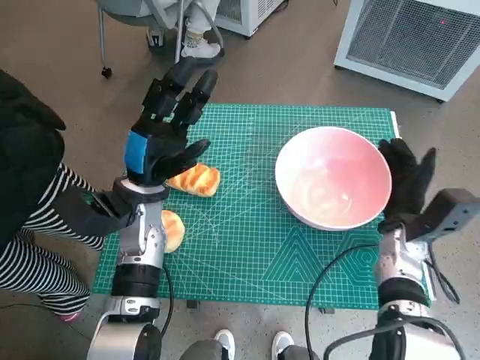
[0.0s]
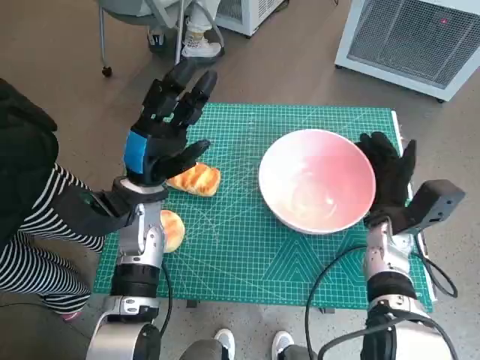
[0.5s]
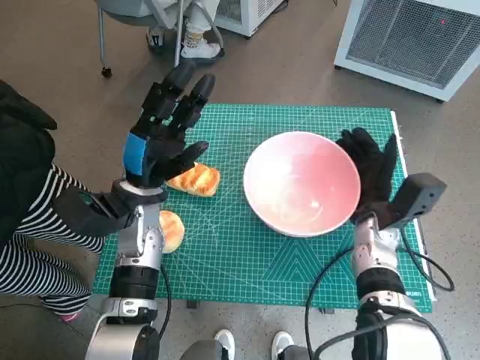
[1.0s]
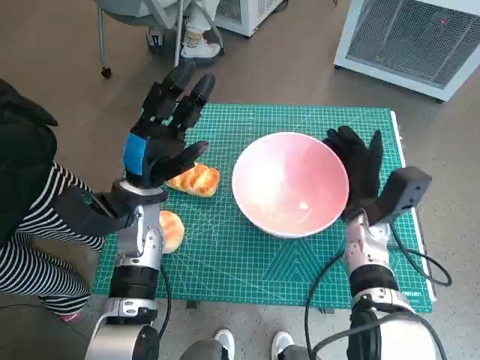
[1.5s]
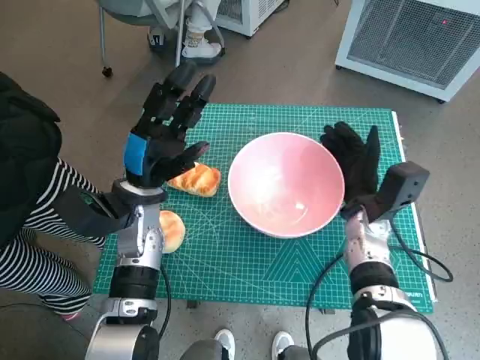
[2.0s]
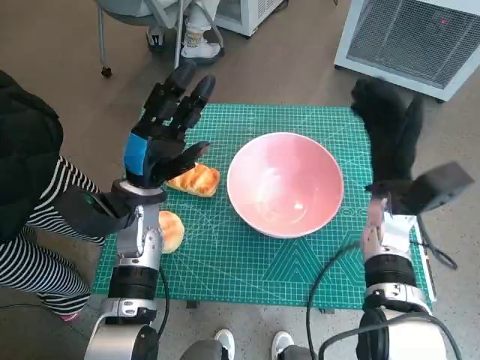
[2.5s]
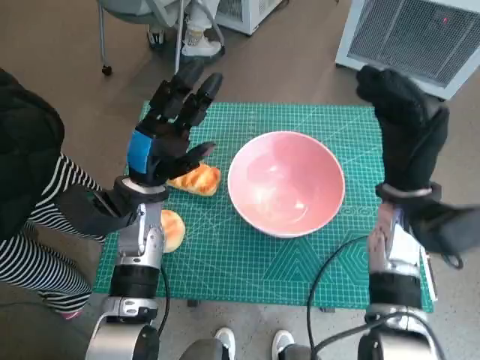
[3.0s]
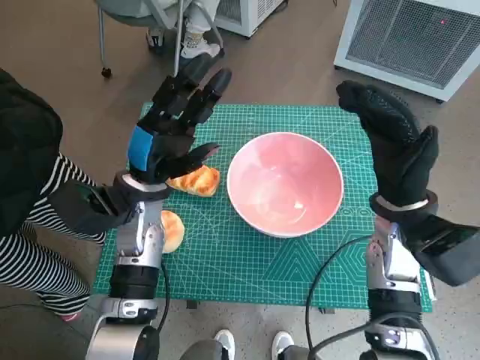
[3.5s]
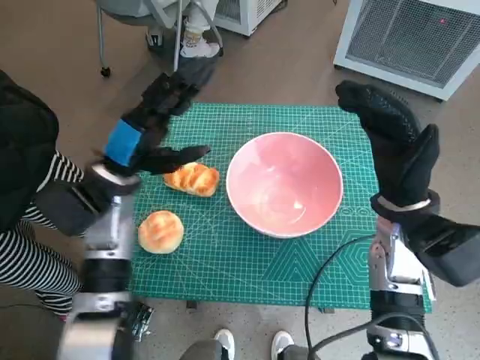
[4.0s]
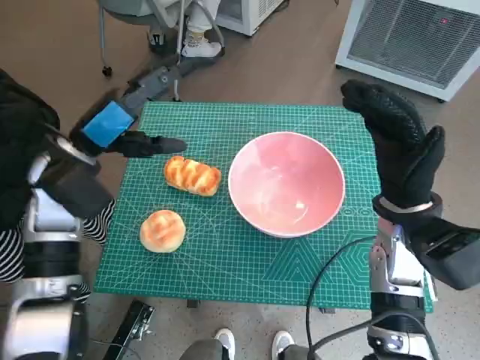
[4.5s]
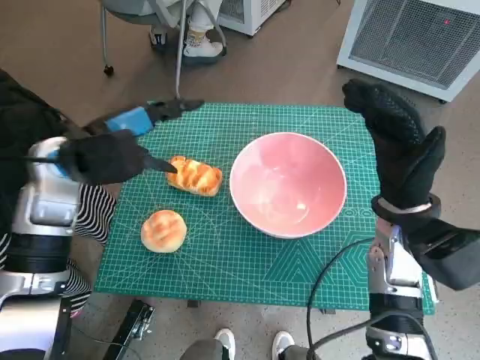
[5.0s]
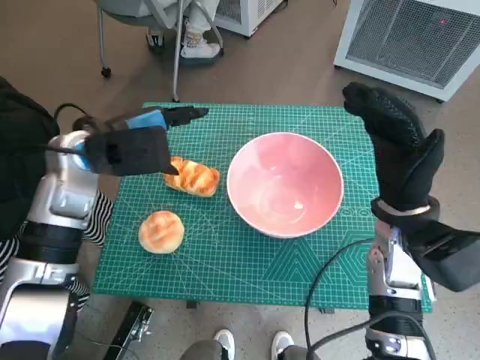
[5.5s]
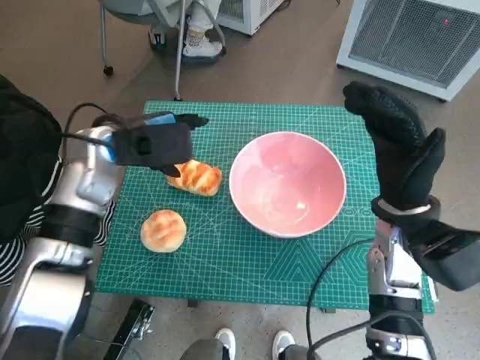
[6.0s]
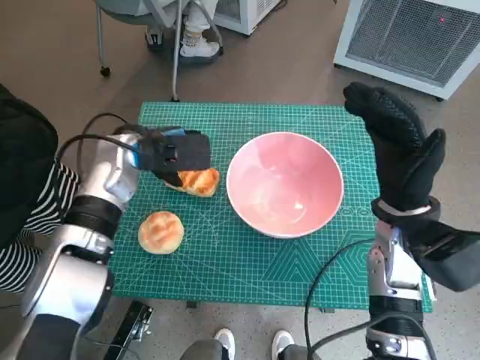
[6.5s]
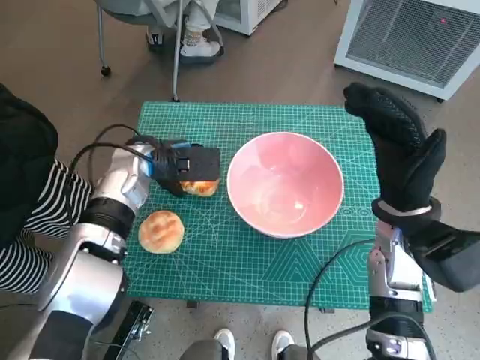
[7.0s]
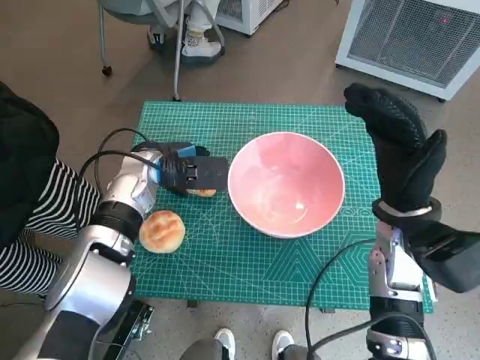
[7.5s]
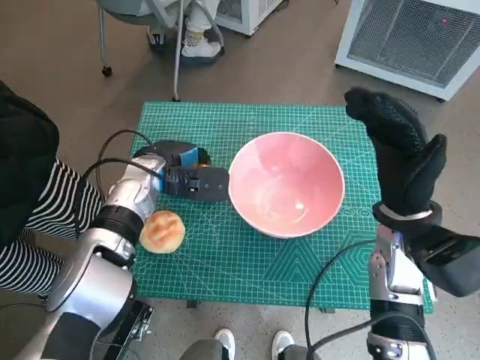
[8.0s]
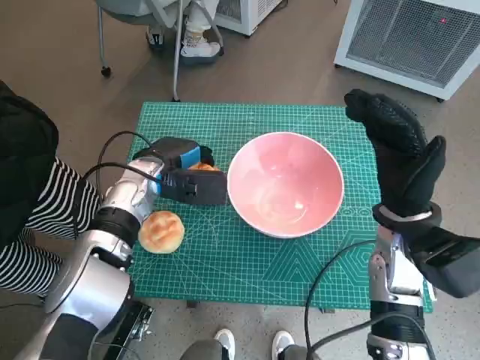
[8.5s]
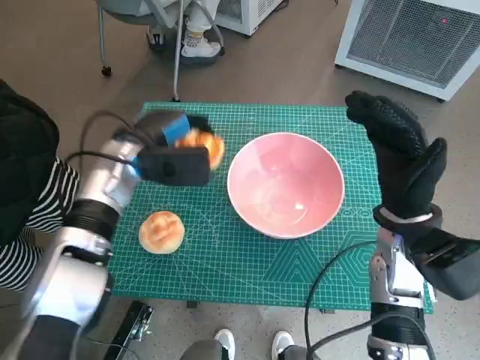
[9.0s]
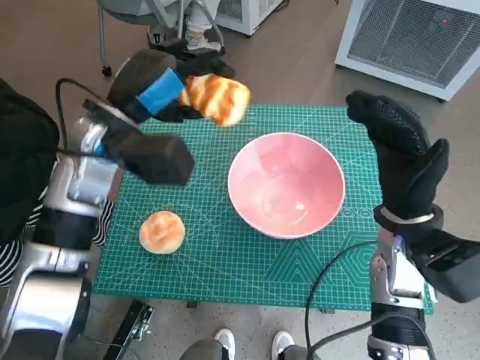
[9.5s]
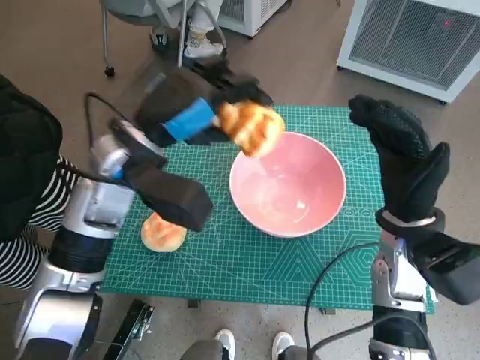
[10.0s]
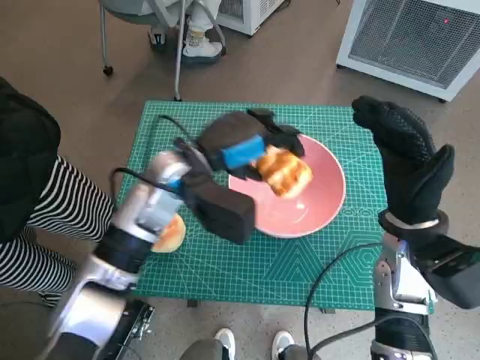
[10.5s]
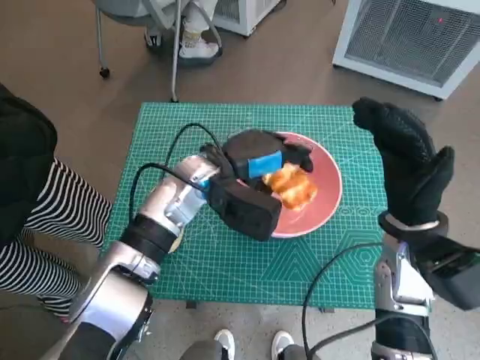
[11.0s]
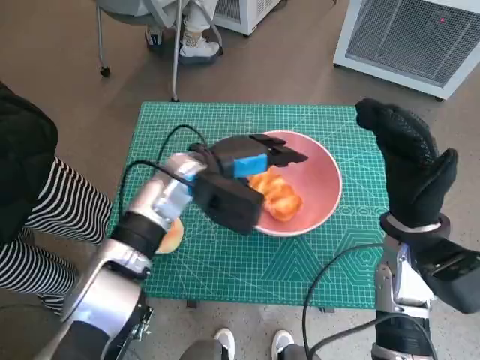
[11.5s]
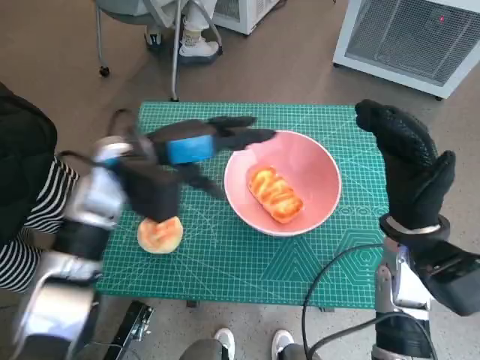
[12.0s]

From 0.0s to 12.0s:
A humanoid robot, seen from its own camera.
Task of the whole recording: Push the bowl into the center of the table and put the bread into the bowl.
Step, from 0.0s to 2.0s: Move the pink bowl to the center of table with right hand.
Step, from 2.5s to 8.0s: Grasp the long bread with left hand.
Step, from 8.5s to 11.5s: Place the long bread in pink bowl with left hand.
From 0.0s to 2.0s: The right hand travels to the left by about 5 cm.
From 2.0s to 4.0s: The right hand goes some 10 cm upward.
From 4.0s to 6.0s: The left hand changes place by some 5 cm.
From 6.0s to 8.0s: The left hand goes some 10 cm downward.
From 8.0s to 10.0s: The left hand moves upward, approximately 10 cm.
From 10.0s to 12.0s: The left hand moves some 5 cm to the right and comes back.

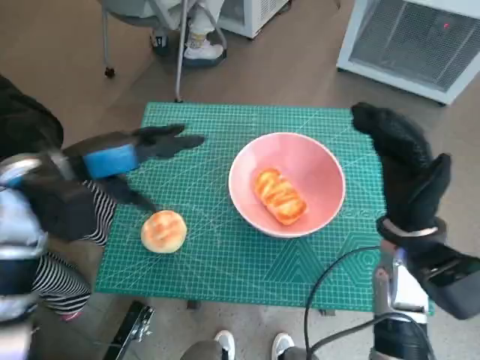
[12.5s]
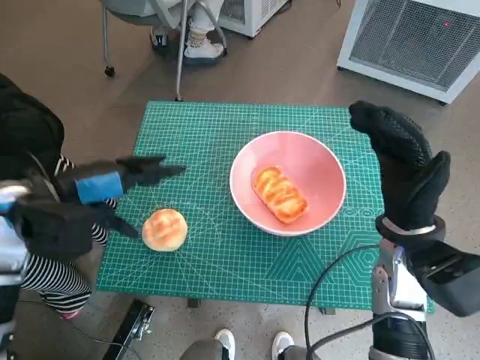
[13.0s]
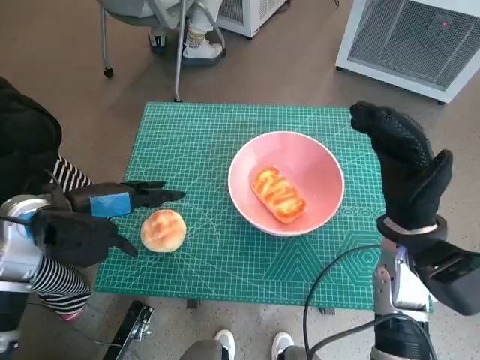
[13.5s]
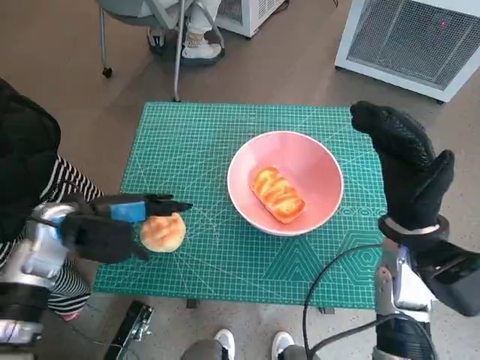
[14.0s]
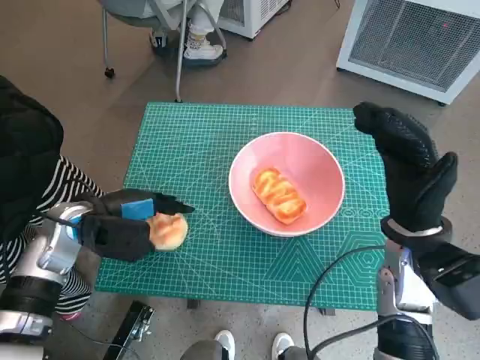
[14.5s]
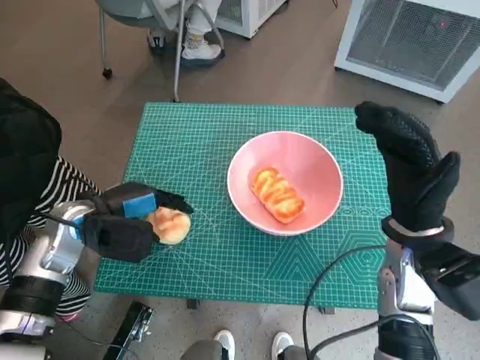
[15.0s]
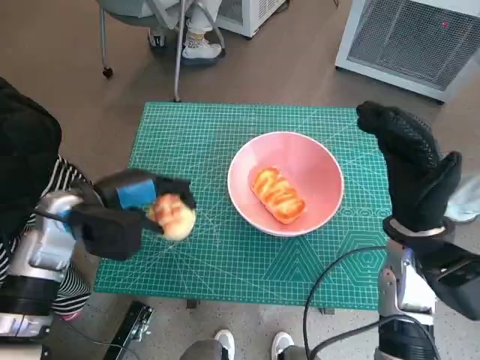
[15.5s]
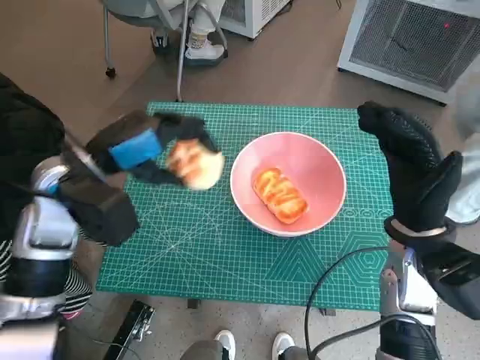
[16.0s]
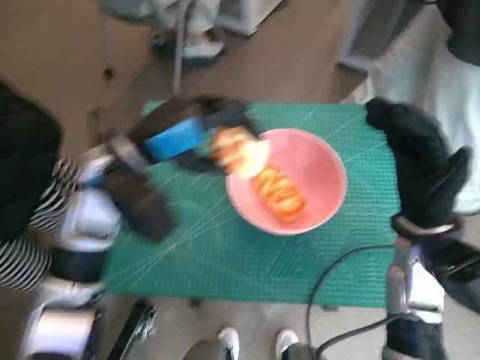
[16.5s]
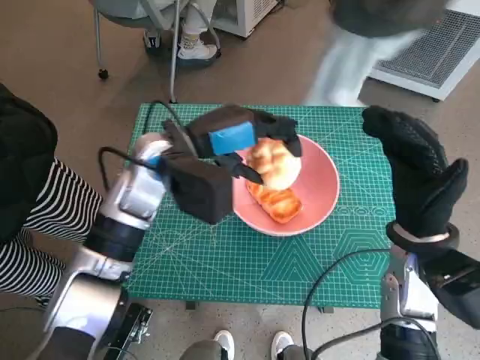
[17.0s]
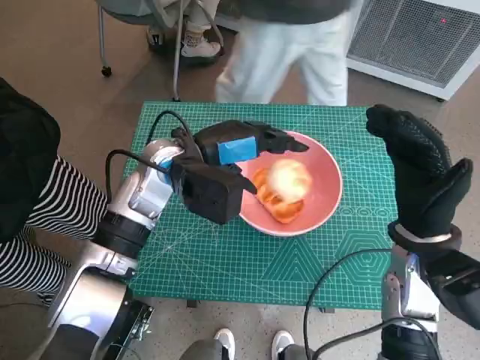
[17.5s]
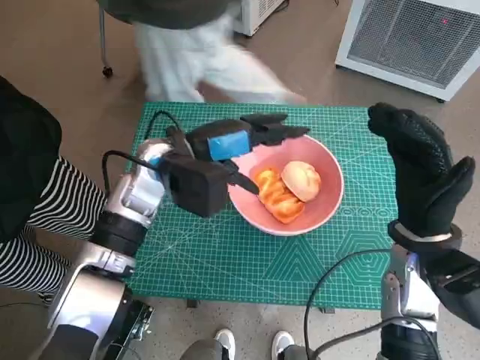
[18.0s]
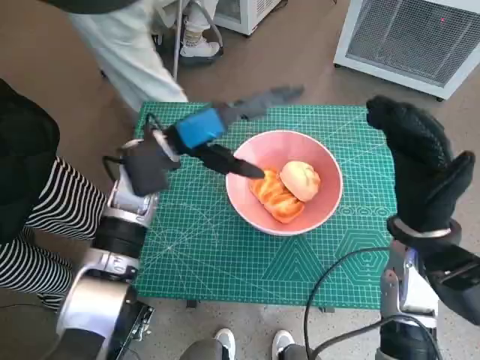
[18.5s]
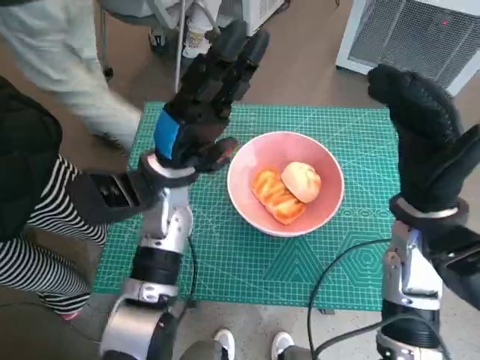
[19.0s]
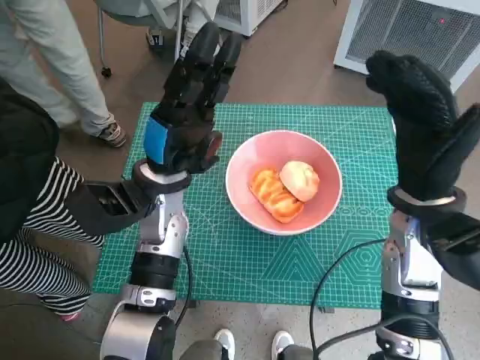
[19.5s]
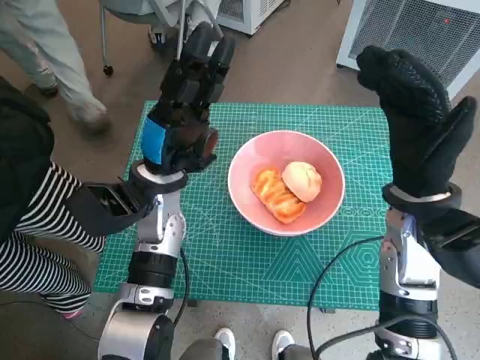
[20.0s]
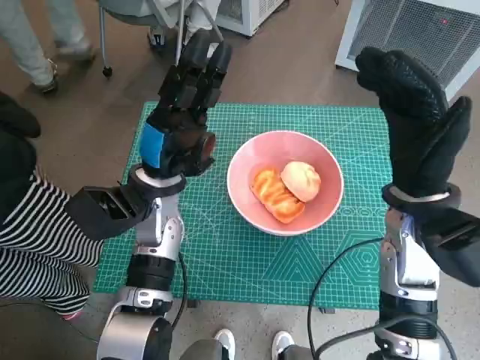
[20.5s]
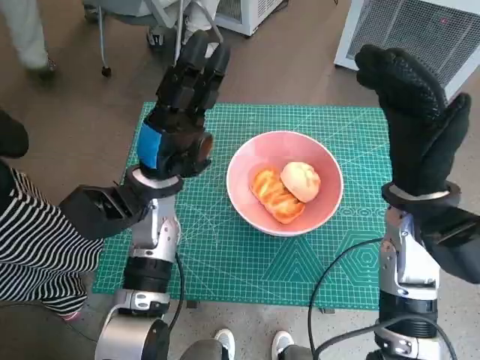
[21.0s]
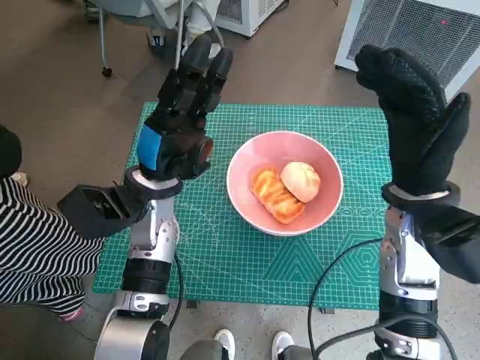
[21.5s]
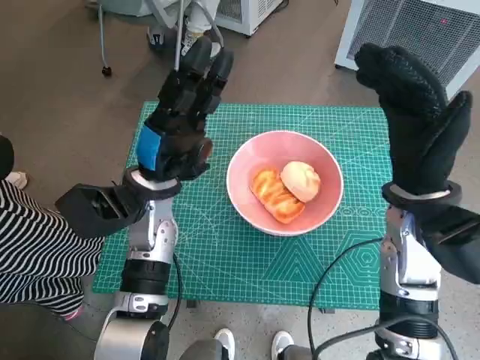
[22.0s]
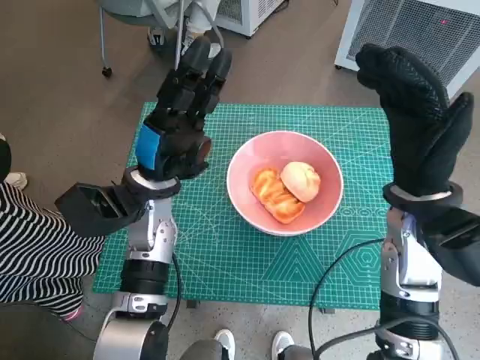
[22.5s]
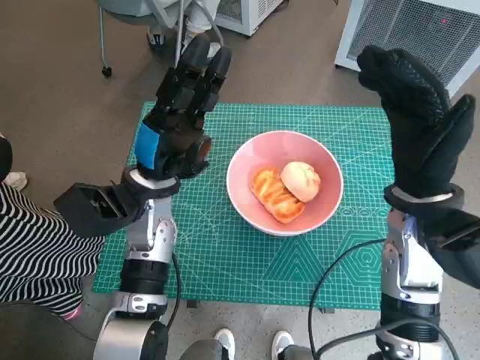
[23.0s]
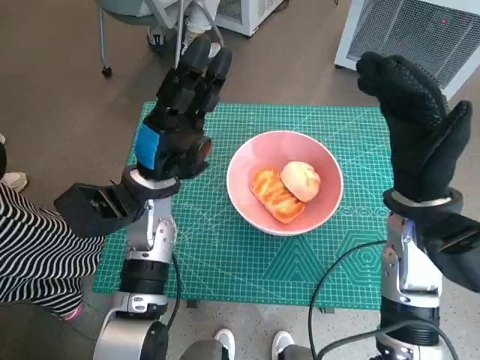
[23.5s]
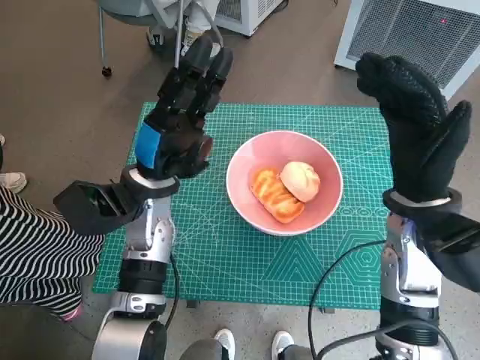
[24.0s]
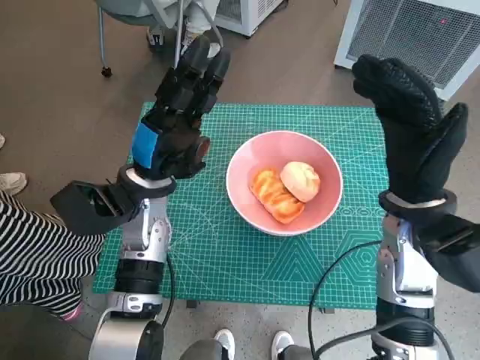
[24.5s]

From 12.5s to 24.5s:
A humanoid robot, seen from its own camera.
Task of the whole recording: Push the bowl into the center of the table and put the bread into the bowl.
Step, from 12.5s to 14.5s: Grasp the round bread with left hand.
Step, from 15.0s to 18.0s: Place the round bread in pink bowl with left hand.
From 12.5s to 14.5s: The left hand heads downward, covering roughly 10 cm.
From 14.5s to 16.5s: The left hand goes some 15 cm upward and to the right.
From 16.5s to 18.5s: The left hand ends up about 5 cm from where it was.
From 18.5s to 20.5s: The left hand shifts by roughly 5 cm.
From 20.5s to 22.5s: Both hands stay put.
From 22.5s to 24.5s: The two hands keep their place.

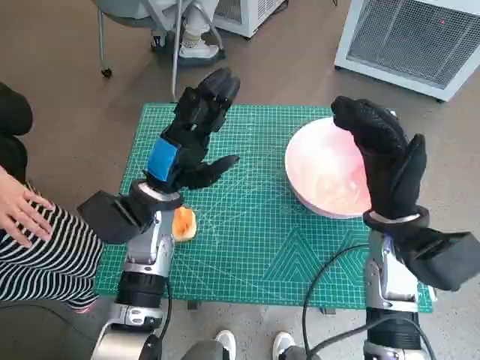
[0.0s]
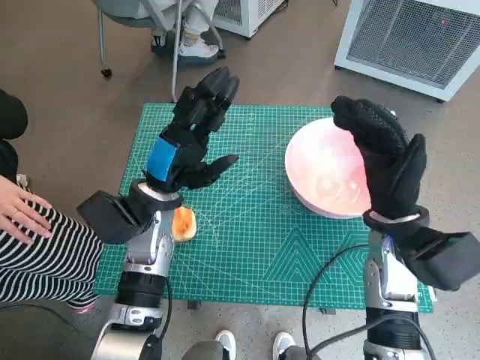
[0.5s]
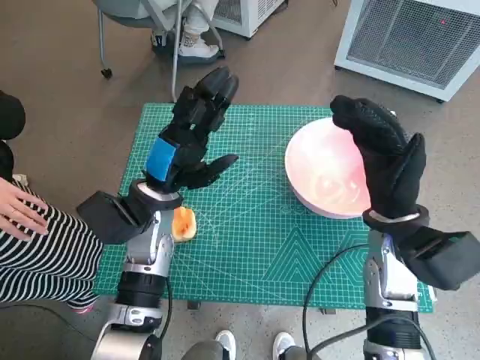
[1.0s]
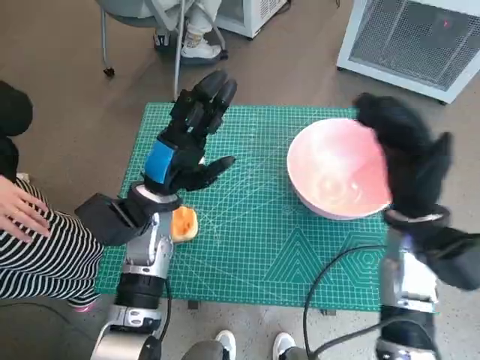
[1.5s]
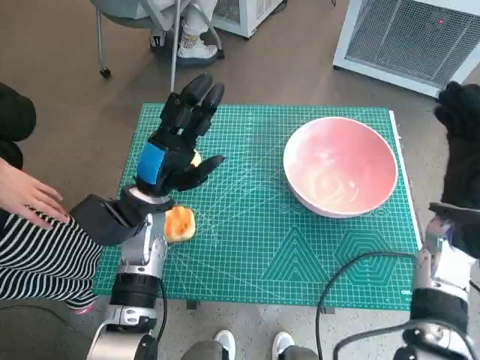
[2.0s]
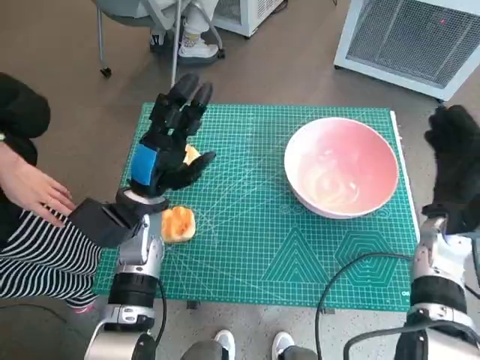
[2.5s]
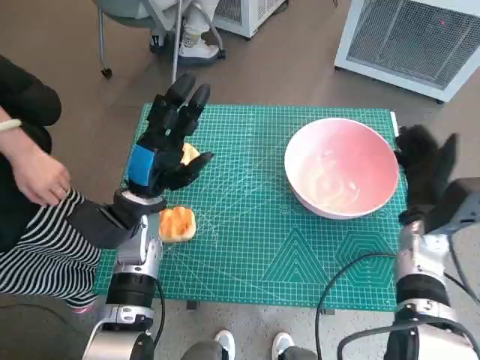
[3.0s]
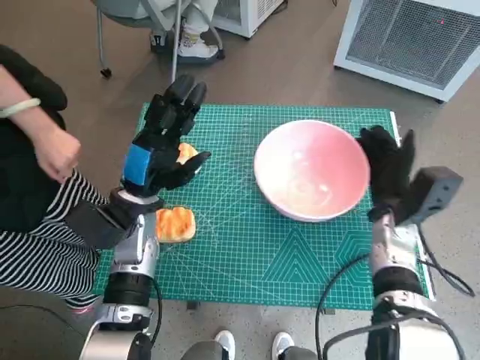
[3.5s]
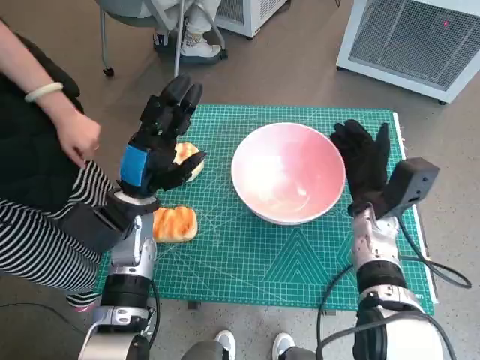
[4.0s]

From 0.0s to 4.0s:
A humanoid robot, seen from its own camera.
Task of the whole recording: Push the bowl into the center of the table and put the bread into the bowl.
From 2.0s to 4.0s: The right hand is displaced to the left and downward by approximately 10 cm.
